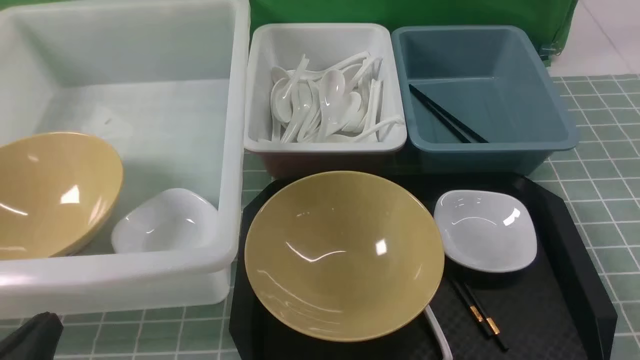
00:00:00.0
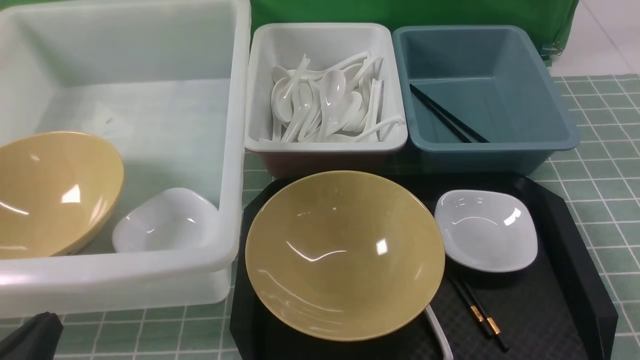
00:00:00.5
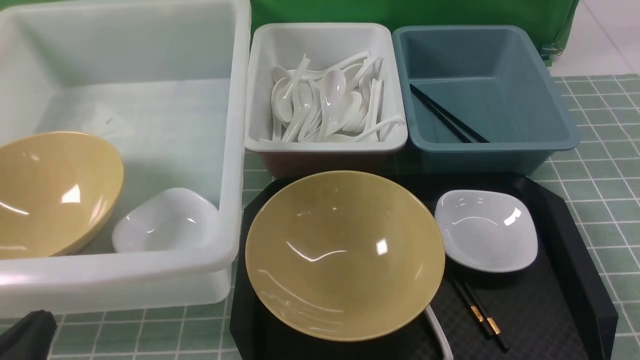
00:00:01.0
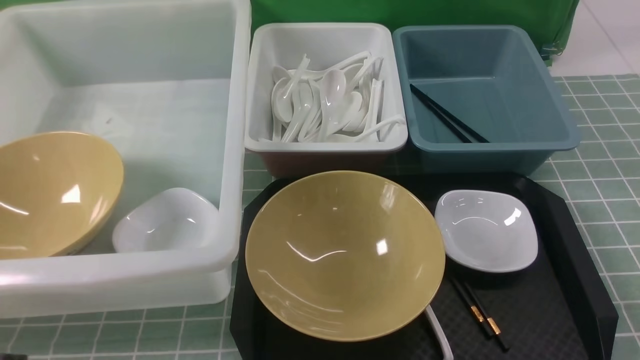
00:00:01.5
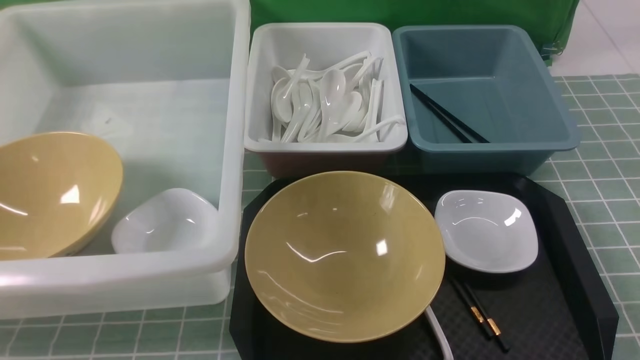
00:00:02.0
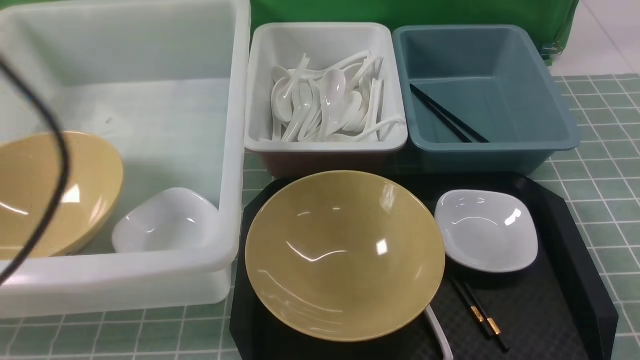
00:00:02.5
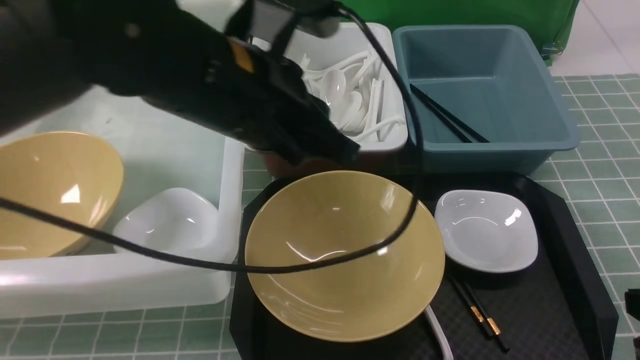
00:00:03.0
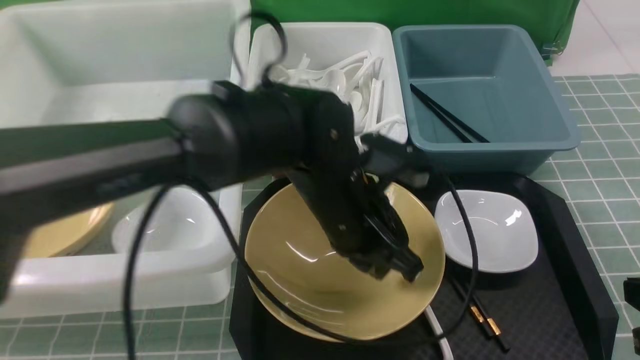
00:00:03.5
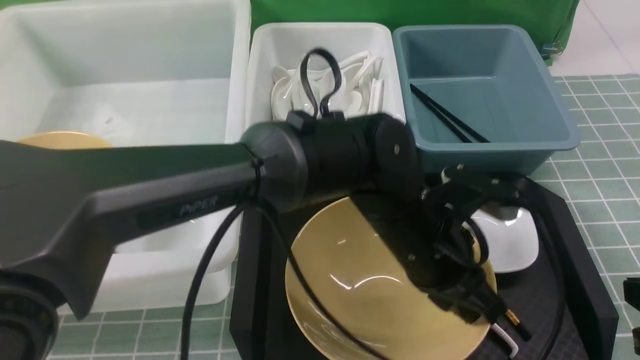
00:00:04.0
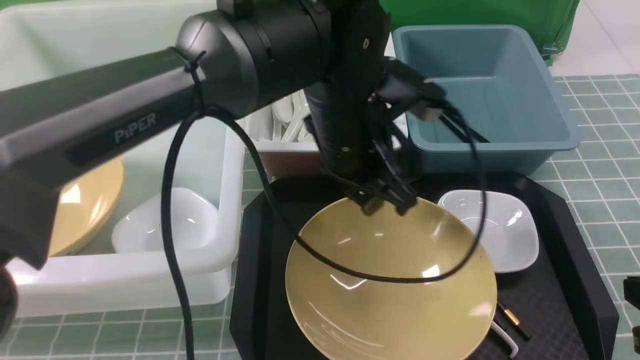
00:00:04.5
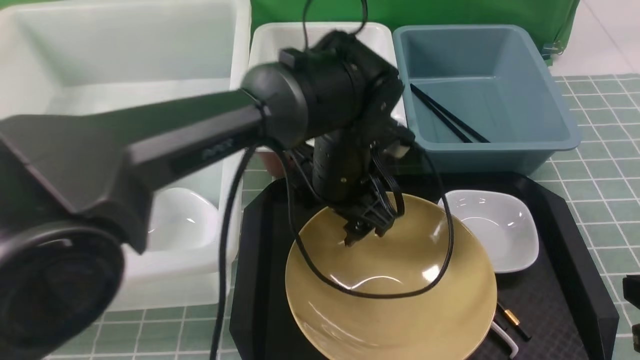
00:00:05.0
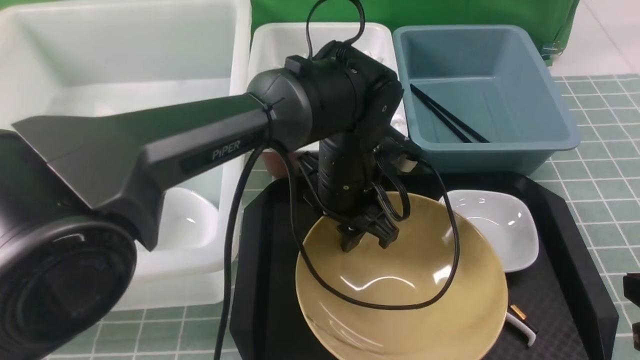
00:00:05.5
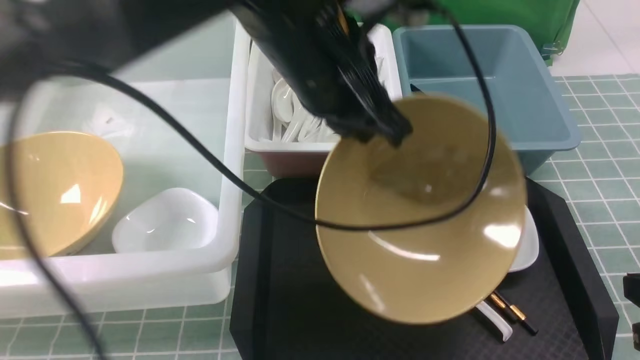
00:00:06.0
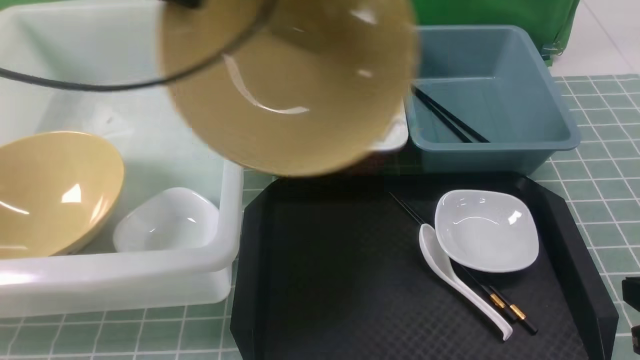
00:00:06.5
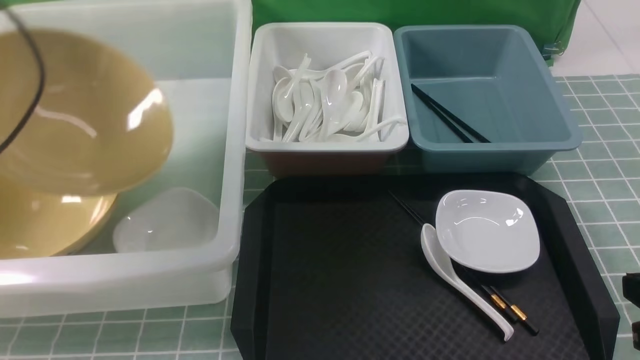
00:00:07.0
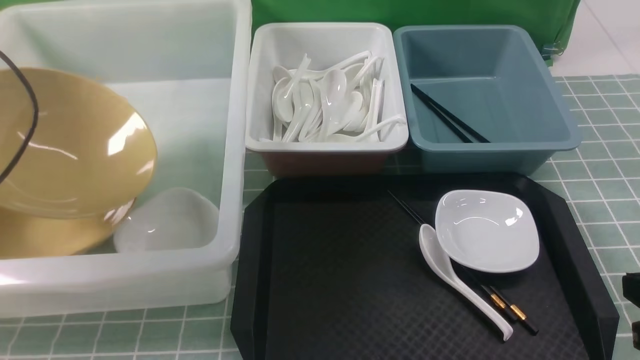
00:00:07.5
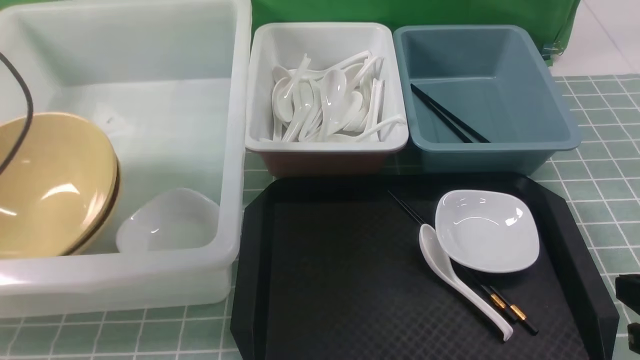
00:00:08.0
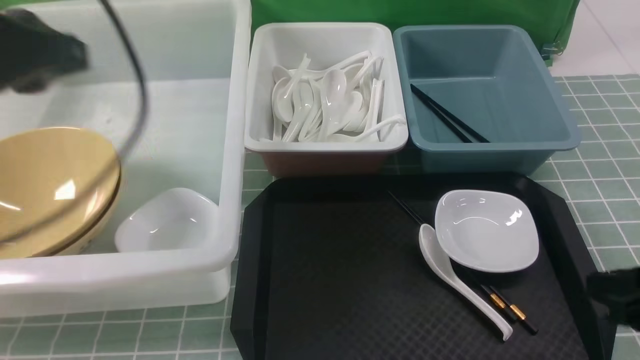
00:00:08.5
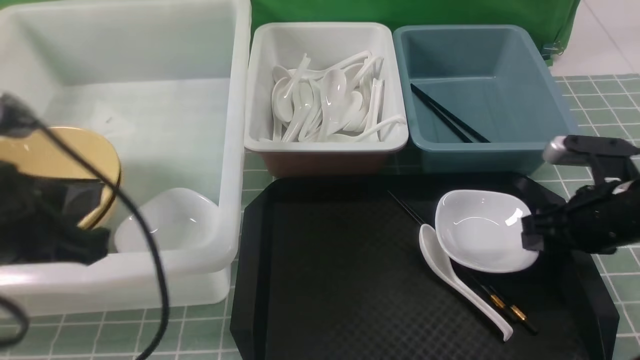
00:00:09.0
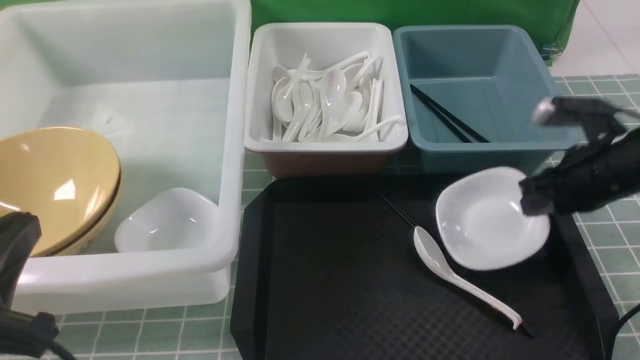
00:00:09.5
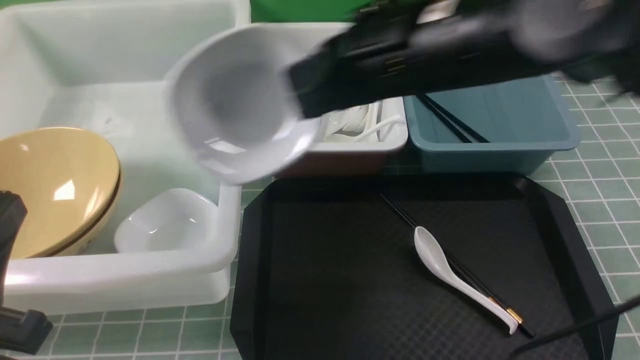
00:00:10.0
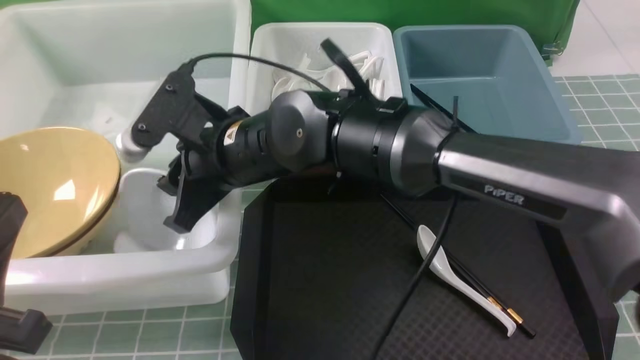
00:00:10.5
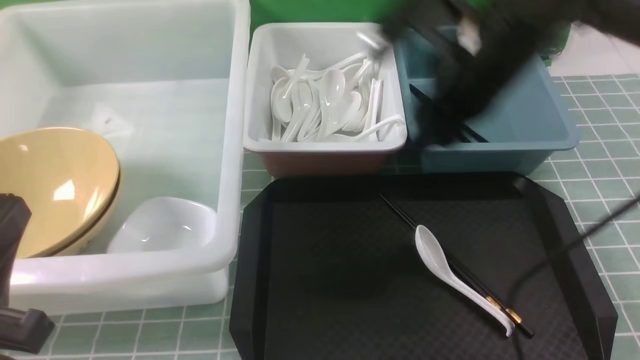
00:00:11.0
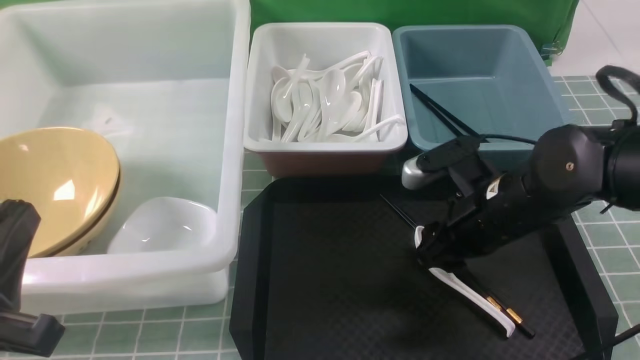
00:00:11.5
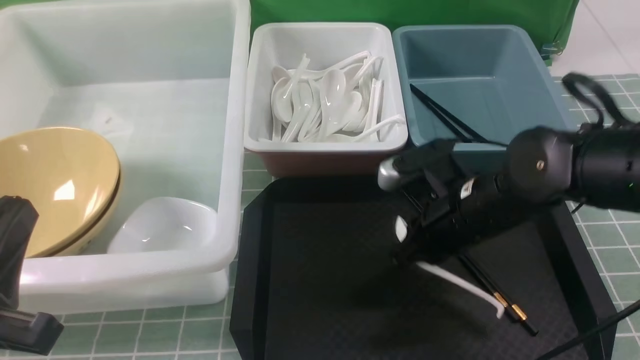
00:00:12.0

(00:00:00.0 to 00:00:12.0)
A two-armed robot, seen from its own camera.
Task of the whole recording: on blue table put chopsticks spoon bowls plates into blue grey white boxes.
Step, 00:00:00.0 - 00:00:05.5: use the left arm to grab the yellow noodle bowl on the left.
Step, 00:00:06.0 - 00:00:08.0: use the left arm to put the noodle bowl into the large storage box on the left.
Step, 00:00:08.5 - 00:00:09.5: use the right arm to grab the plate.
Step, 00:00:10.0 - 00:00:10.5: use the right arm to put the plate into the large storage box on the left.
Step, 00:00:11.0 - 00:00:12.0: use the right arm to grab the soup spoon in the middle.
00:00:00.0 - 00:00:02.0: The grippers both shift upward by some 10 cm.
00:00:02.0 - 00:00:04.0: The left gripper moves to the right and forward, roughly 40 cm. Meanwhile the right gripper travels forward by approximately 10 cm.
00:00:04.0 - 00:00:06.0: The left gripper goes up and down, about 15 cm each way, reversing 2 times, and opens and closes again.
00:00:06.0 - 00:00:08.0: The left gripper goes some 35 cm to the left, and opens.
00:00:08.0 - 00:00:10.0: The right gripper shifts about 30 cm to the left, forward and upward, and opens, then closes once more. The left gripper shifts about 25 cm backward and to the right, and closes.
00:00:10.0 - 00:00:12.0: The right gripper heads downward, covering approximately 15 cm, reaches approximately 10 cm to the left, then returns, and opens and closes again.

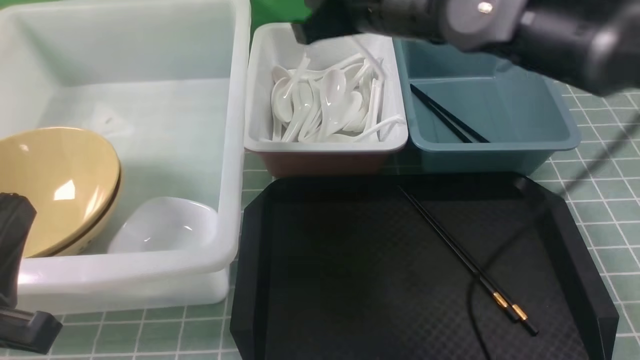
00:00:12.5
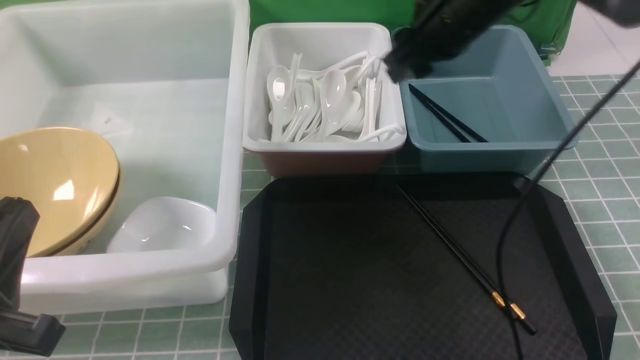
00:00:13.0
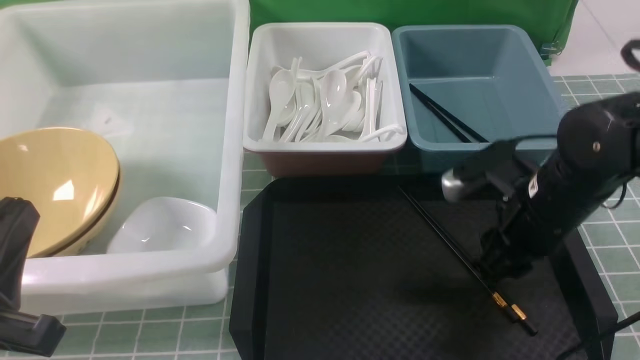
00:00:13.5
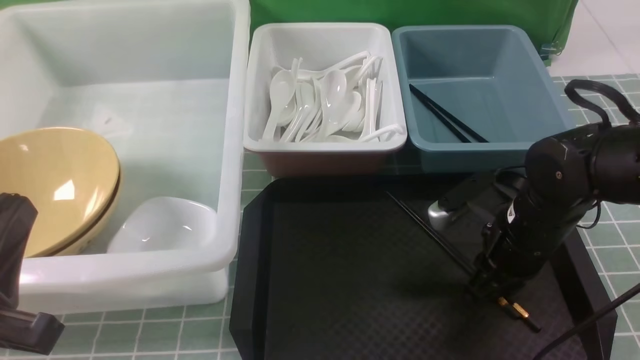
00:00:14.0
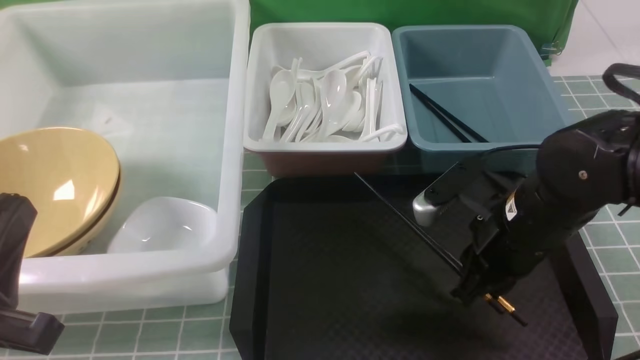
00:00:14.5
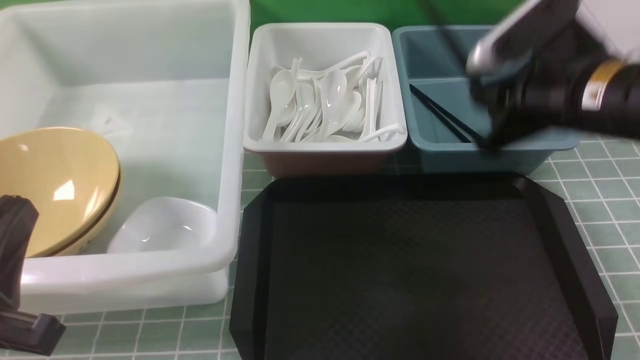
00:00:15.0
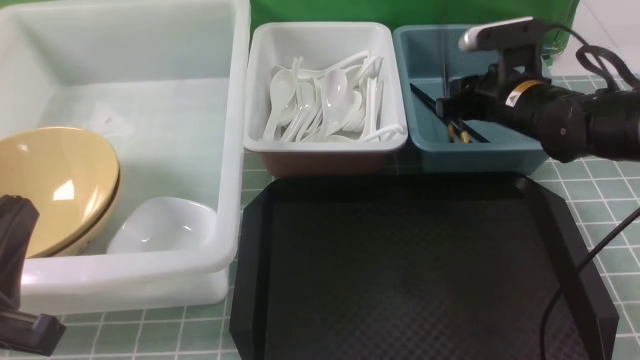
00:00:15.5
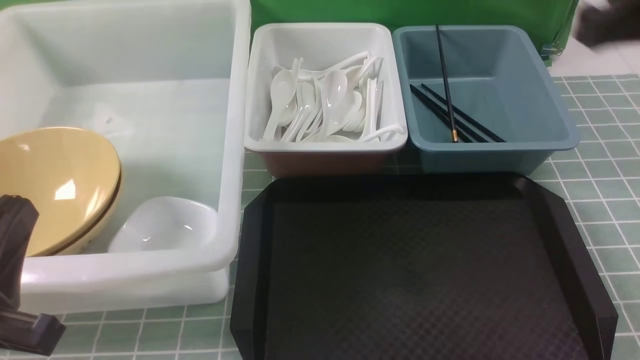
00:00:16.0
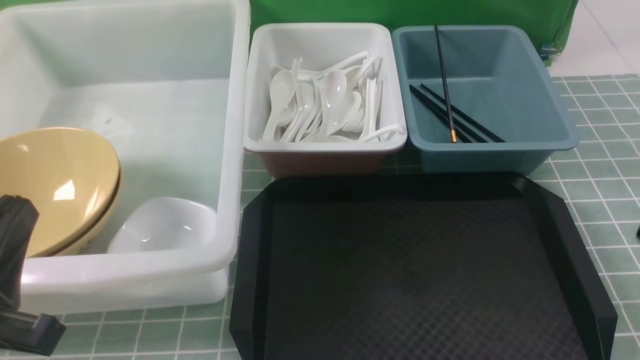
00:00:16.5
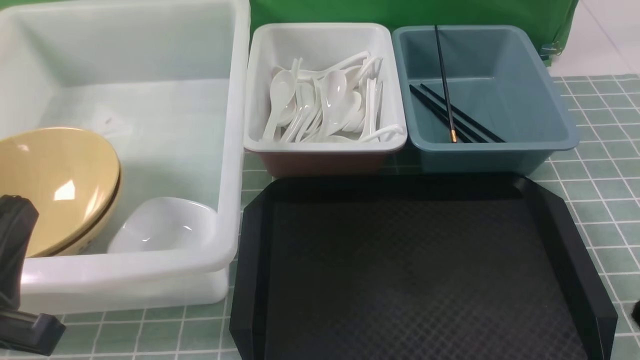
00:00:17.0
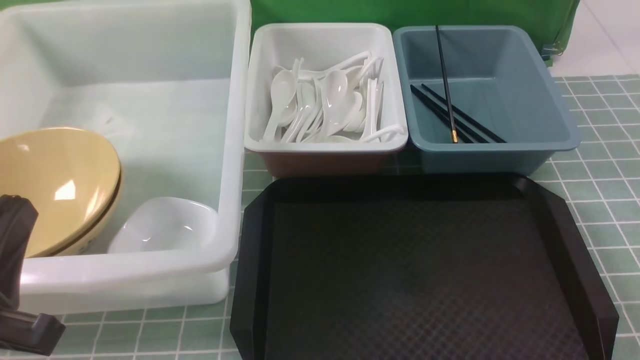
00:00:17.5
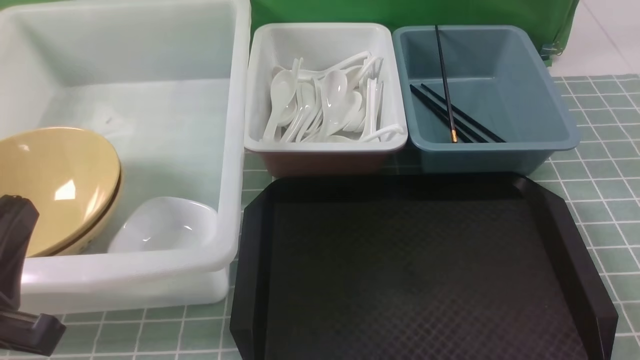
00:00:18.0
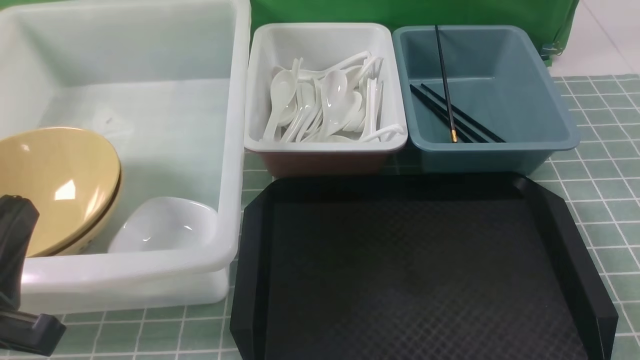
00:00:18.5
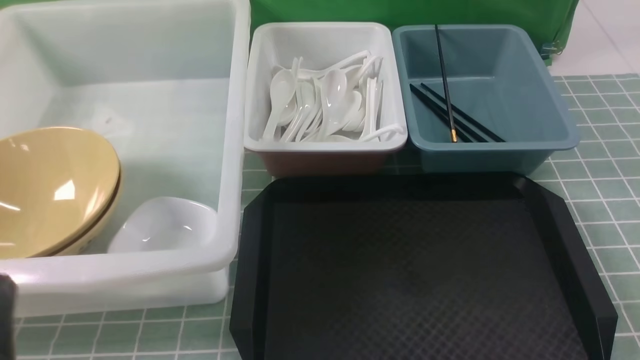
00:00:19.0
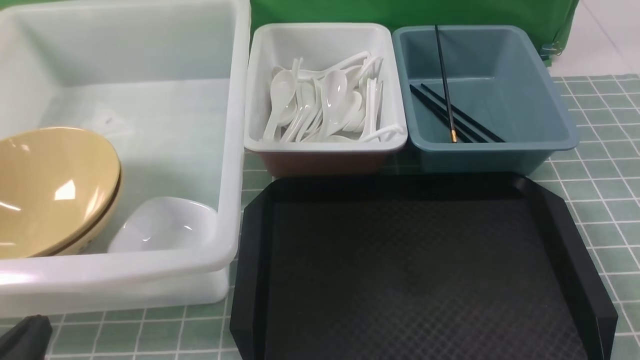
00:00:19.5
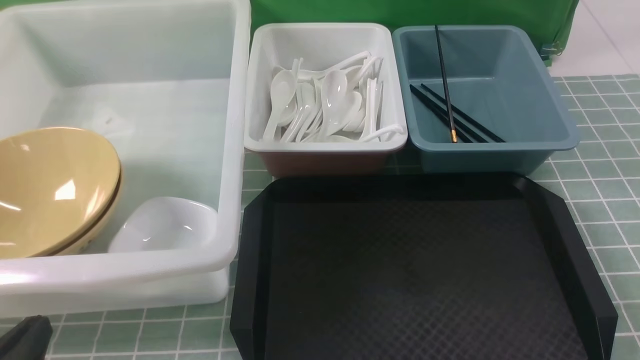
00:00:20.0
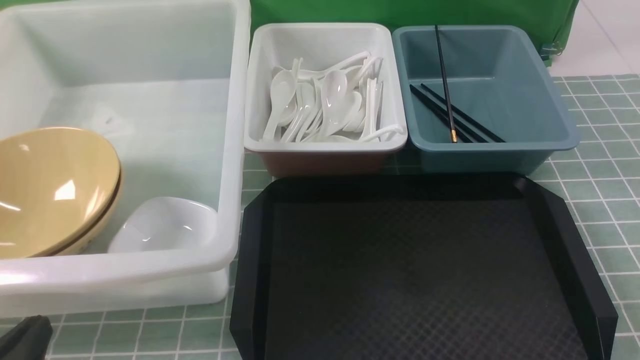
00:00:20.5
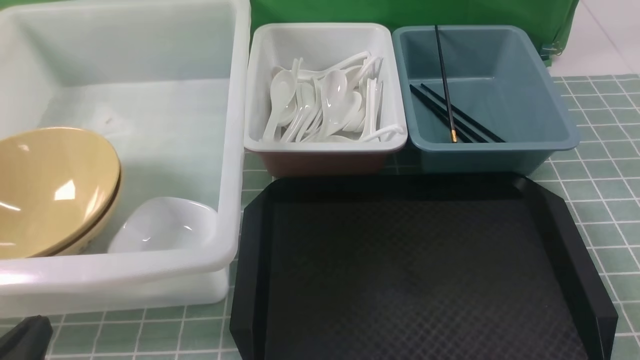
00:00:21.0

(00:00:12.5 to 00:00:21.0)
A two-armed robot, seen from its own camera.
Task of the whole recording: on blue table put chopsticks spoon bowls plates into blue grey white boxes.
Step, 00:00:13.0 - 00:00:14.5: use the right arm to grab the chopsticks.
Step, 00:00:15.0 - 00:00:15.5: use the right arm to put the chopsticks into the small storage box on the right.
00:00:12.5 - 00:00:14.5: The right gripper goes some 20 cm backward, downward and to the right, and opens, then closes once more.
00:00:14.5 - 00:00:16.5: The right gripper goes approximately 20 cm backward and to the right.
00:00:16.5 - 00:00:19.0: The left gripper moves downward, approximately 5 cm.
00:00:19.0 - 00:00:21.0: The grippers stay close to where they were, moving slightly.
